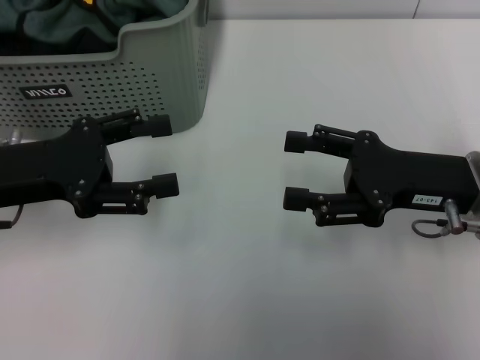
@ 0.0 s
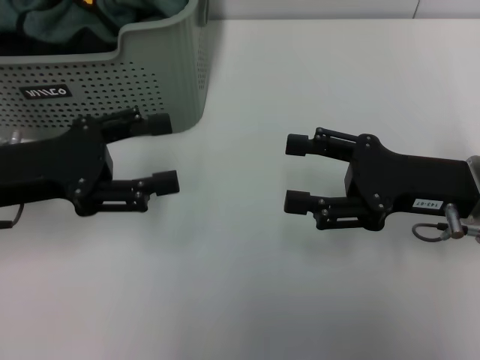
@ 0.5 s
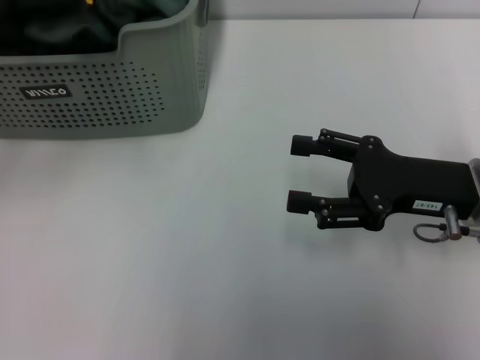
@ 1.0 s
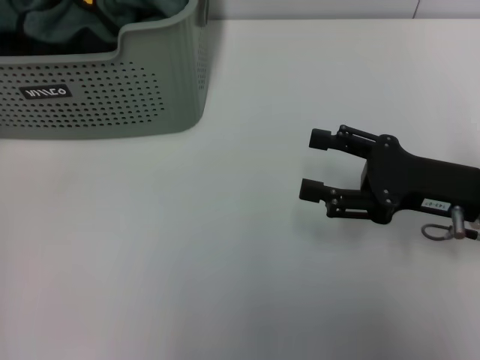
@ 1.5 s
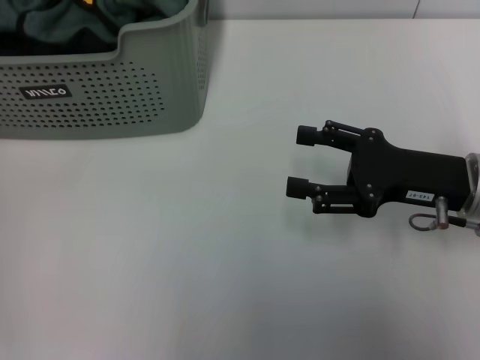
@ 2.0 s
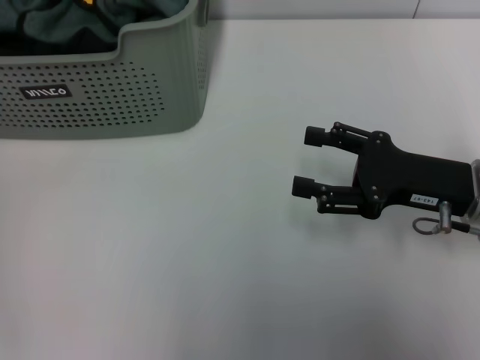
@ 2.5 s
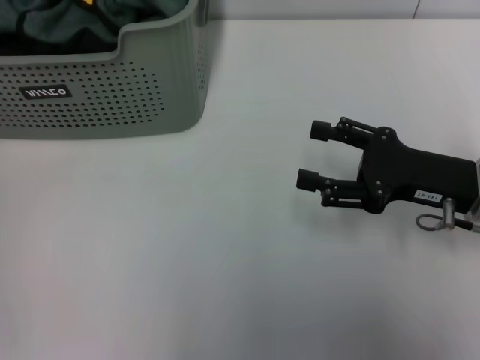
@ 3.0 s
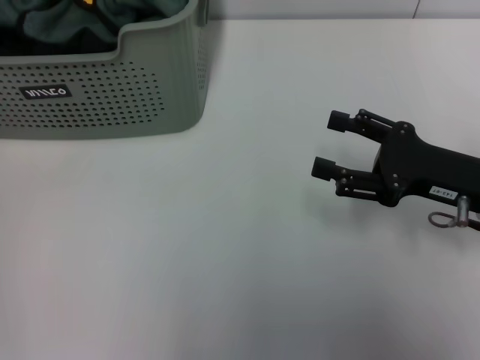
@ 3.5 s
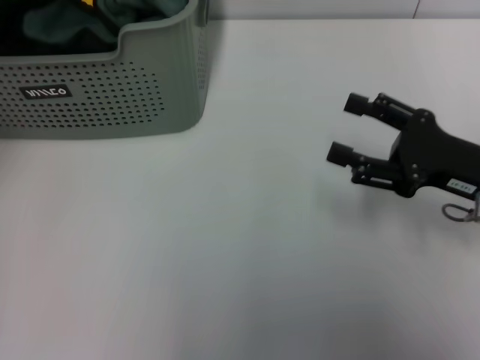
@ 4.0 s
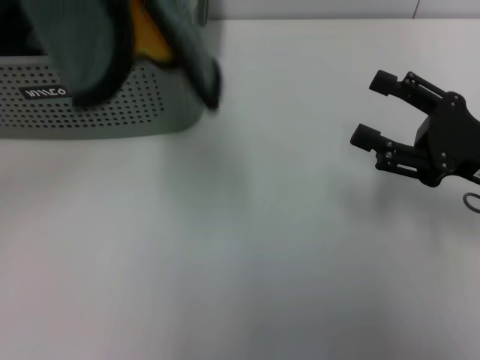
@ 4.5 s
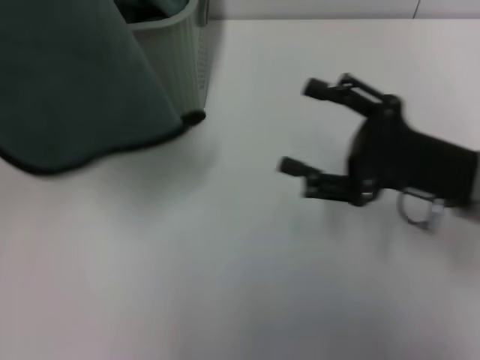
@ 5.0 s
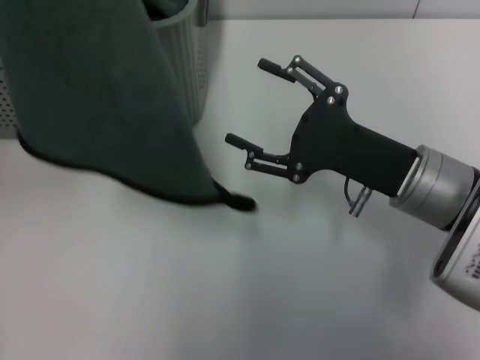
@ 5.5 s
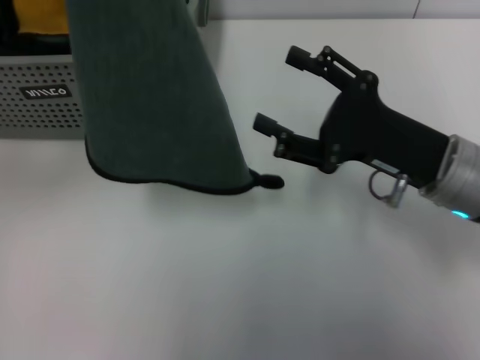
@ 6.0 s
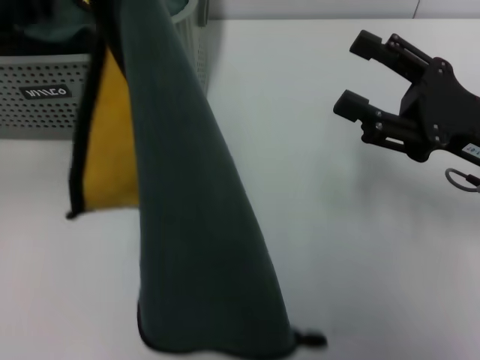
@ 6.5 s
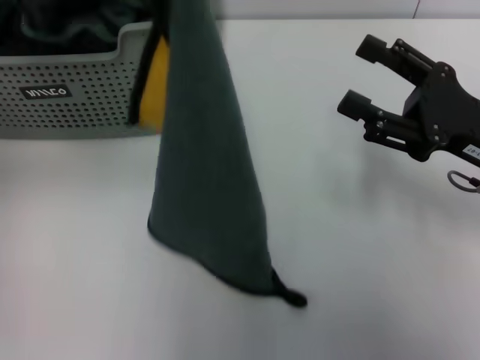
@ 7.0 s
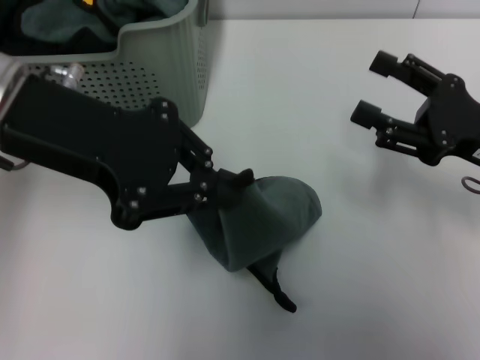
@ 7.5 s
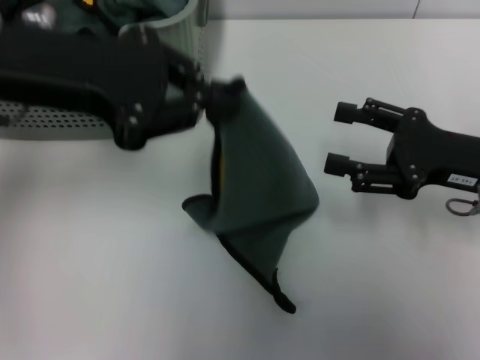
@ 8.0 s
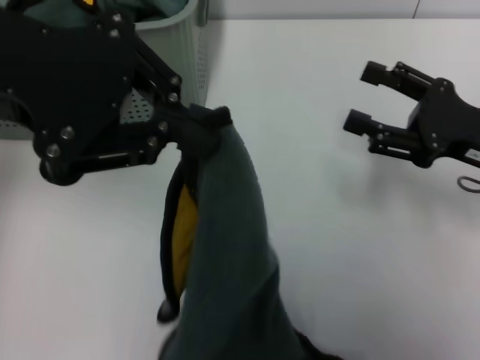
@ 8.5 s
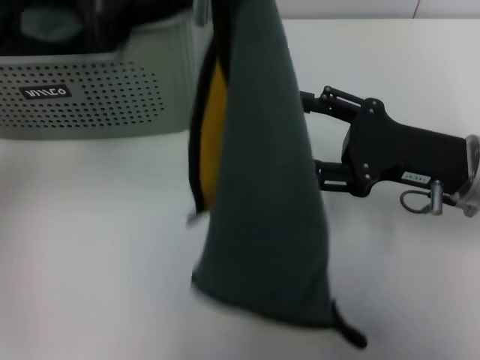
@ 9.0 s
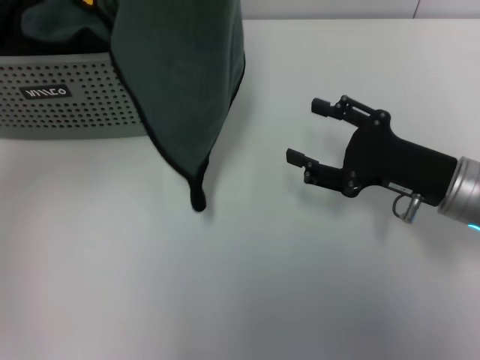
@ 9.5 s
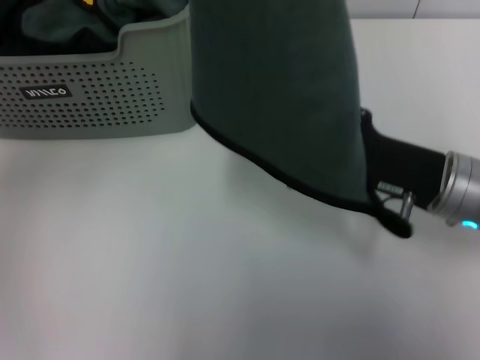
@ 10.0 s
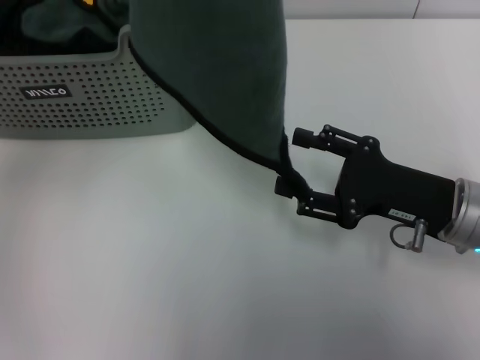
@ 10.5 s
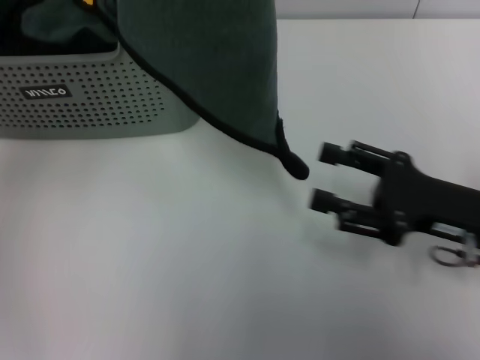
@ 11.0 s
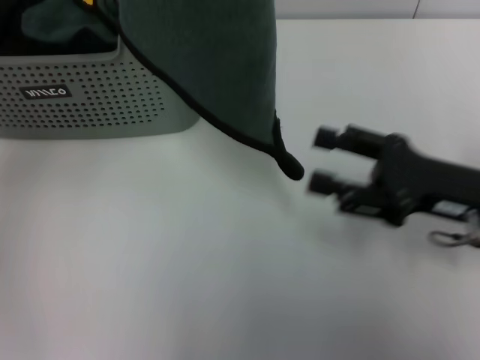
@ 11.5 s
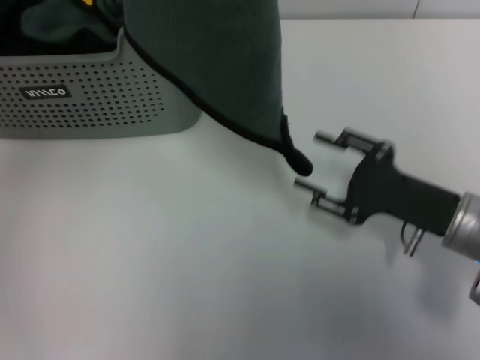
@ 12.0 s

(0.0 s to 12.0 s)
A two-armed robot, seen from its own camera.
Task of the whole recording: pick up the towel from the storage box and lay it flat on the table.
Step, 0.0 s - 3.0 s: Pick up a towel with the left gripper.
0.0 s - 2.0 s: The left gripper is displaced upward, to the left and forward by about 20 cm.
2.0 s - 4.0 s: The left gripper shifts roughly 15 cm upward, backward and to the right, and closes up.
4.0 s - 6.0 s: The right gripper shifts roughly 5 cm to the left.
6.0 s - 8.0 s: The left gripper heads downward and to the right, covering some 10 cm; the right gripper is displaced to the right by about 5 cm.
8.0 s - 10.0 s: The left gripper travels upward by approximately 10 cm. Meanwhile the right gripper heads to the left, covering some 5 cm.

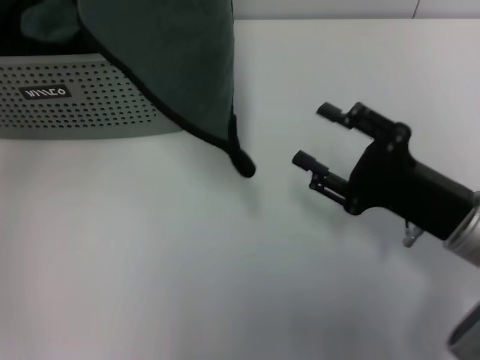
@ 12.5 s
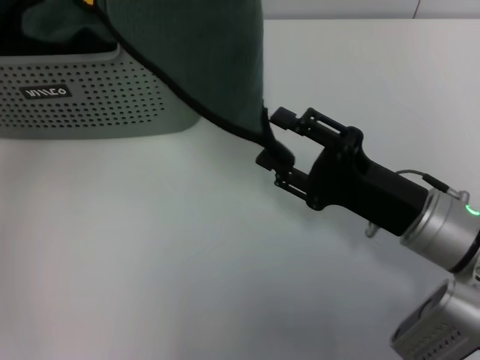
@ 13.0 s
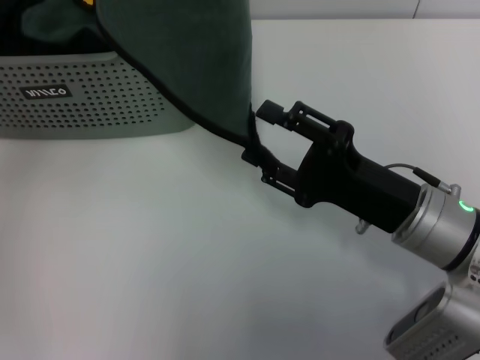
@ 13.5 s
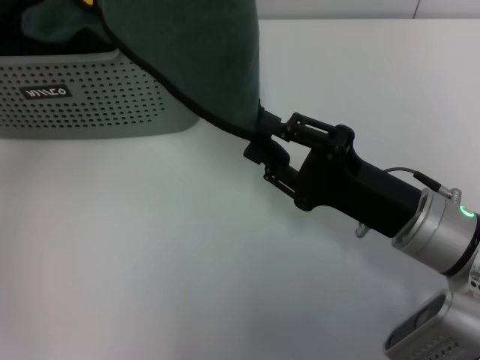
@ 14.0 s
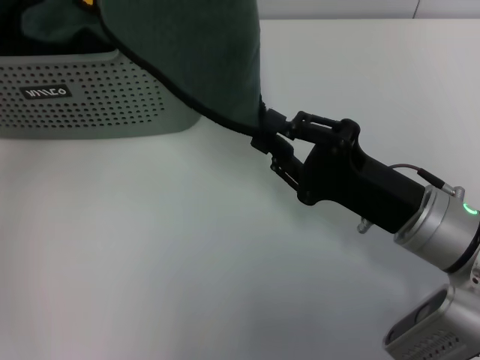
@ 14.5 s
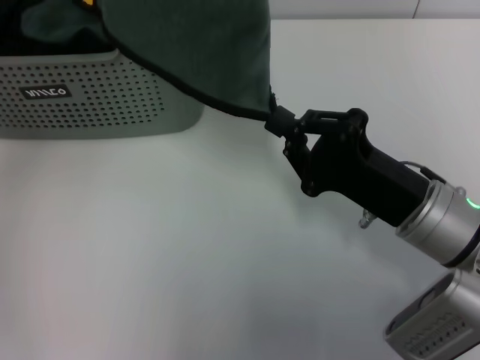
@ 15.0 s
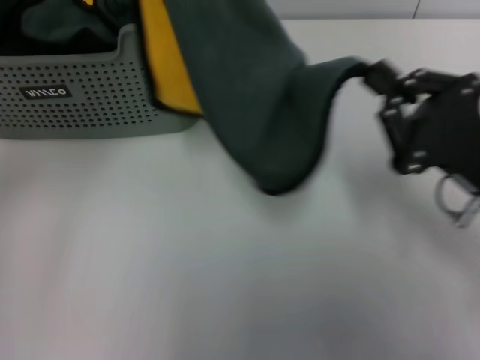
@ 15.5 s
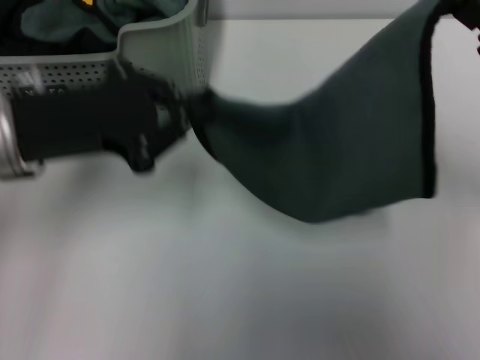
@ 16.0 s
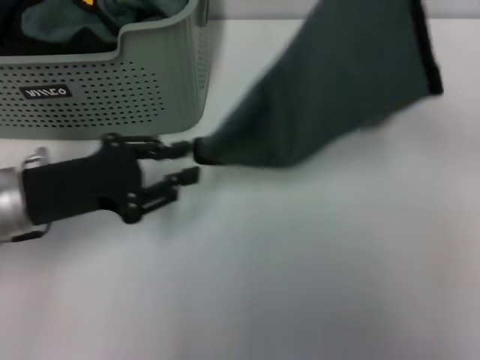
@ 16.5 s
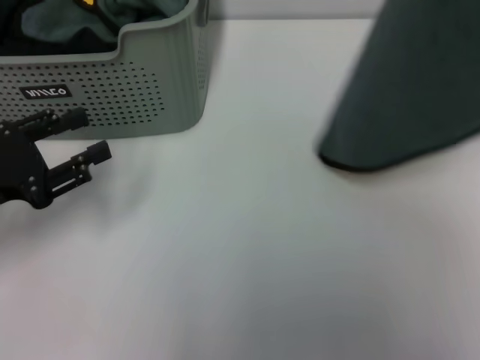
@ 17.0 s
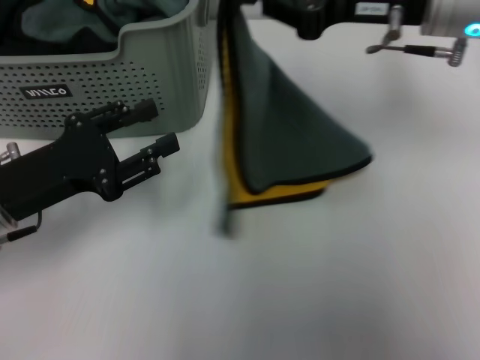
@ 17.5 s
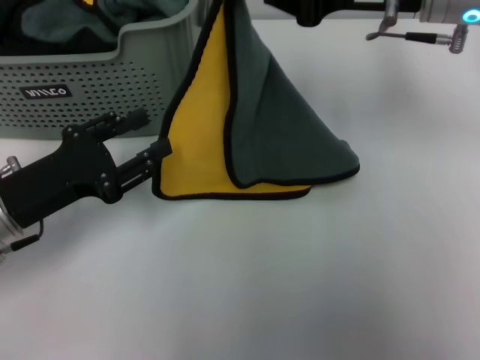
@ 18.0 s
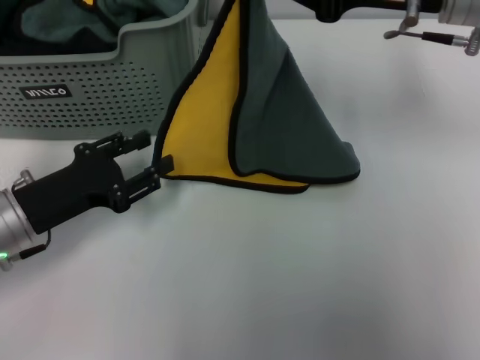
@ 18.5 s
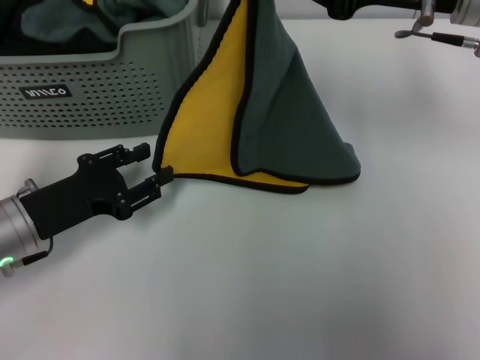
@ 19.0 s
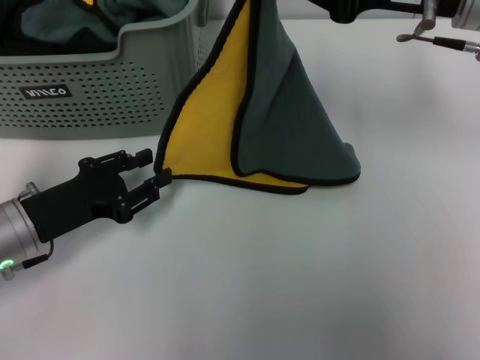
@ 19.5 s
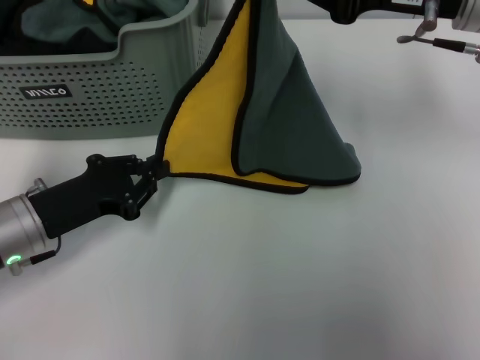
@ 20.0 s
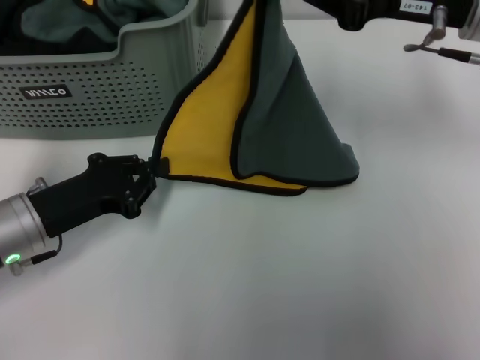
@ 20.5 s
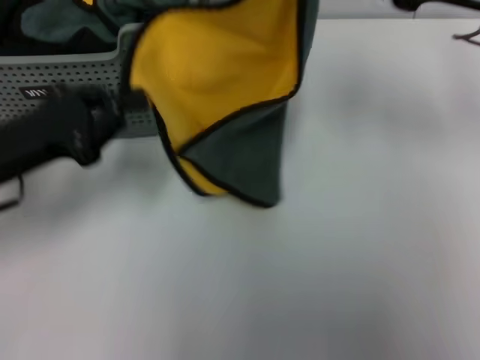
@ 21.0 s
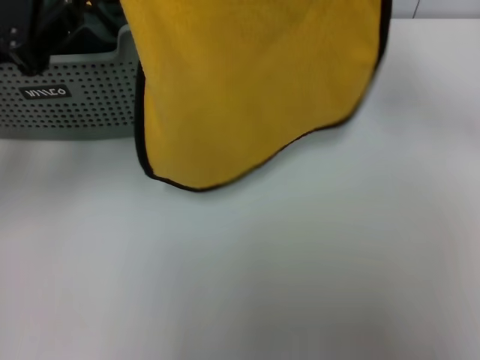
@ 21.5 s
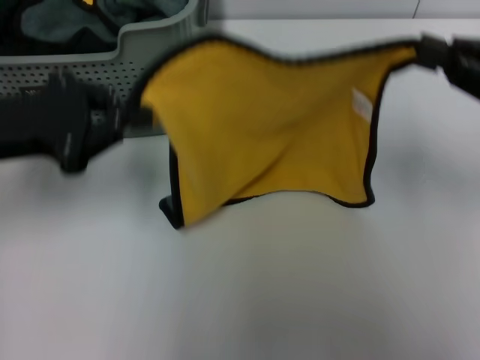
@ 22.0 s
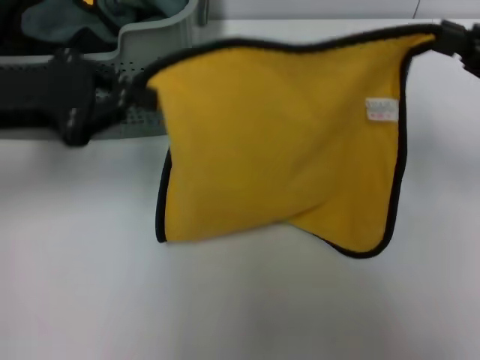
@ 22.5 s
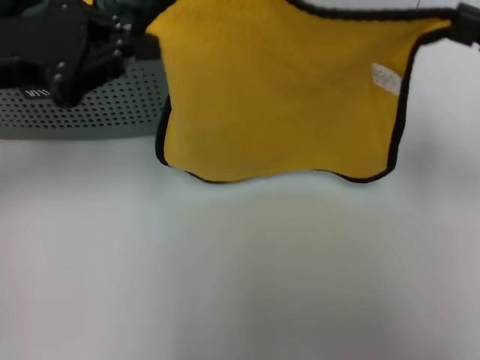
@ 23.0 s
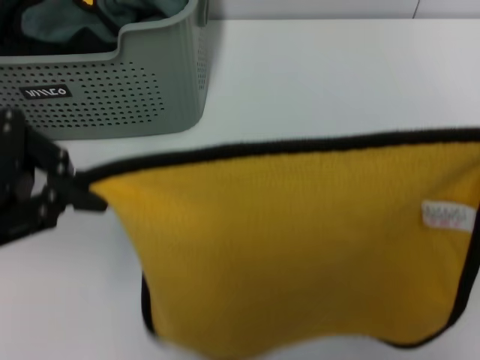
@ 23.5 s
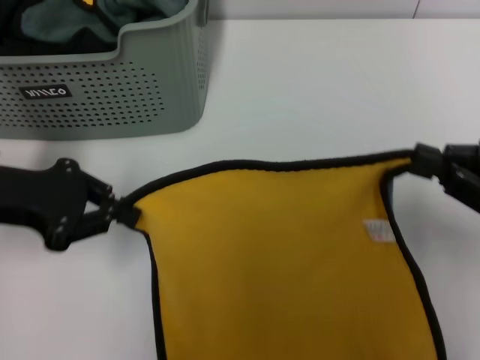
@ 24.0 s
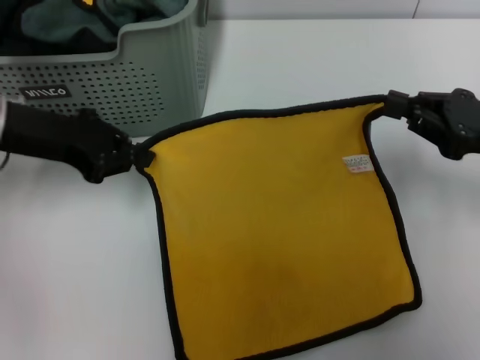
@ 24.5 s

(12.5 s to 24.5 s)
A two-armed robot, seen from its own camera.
Task of the whole recording: pick up the towel from the storage box and lay it flat on the table.
12.5 s - 14.5 s: The grippers stay close to where they were, moving slightly.
14.5 s - 16.5 s: The left gripper moves downward, approximately 30 cm. The right gripper shifts roughly 20 cm upward, to the right and forward, and closes up.
16.5 s - 18.5 s: The right gripper goes approximately 10 cm to the left and forward. Meanwhile the left gripper goes roughly 5 cm downward, and opens.
18.5 s - 20.5 s: The left gripper closes its fingers.
20.5 s - 22.5 s: The left gripper travels upward by approximately 15 cm. Meanwhile the right gripper moves to the right and backward, some 15 cm.
22.5 s - 24.5 s: The right gripper is displaced downward by some 5 cm, and reaches some 10 cm backward, then returns.

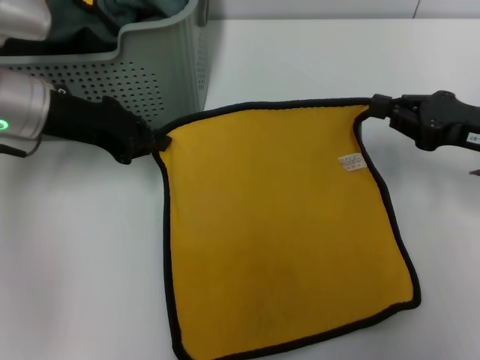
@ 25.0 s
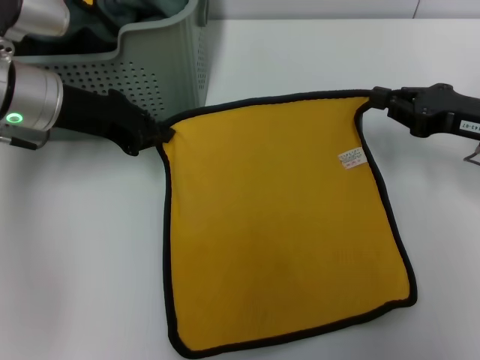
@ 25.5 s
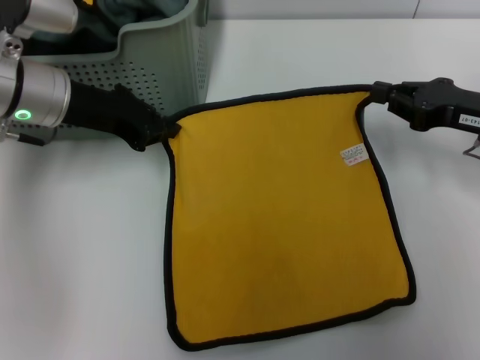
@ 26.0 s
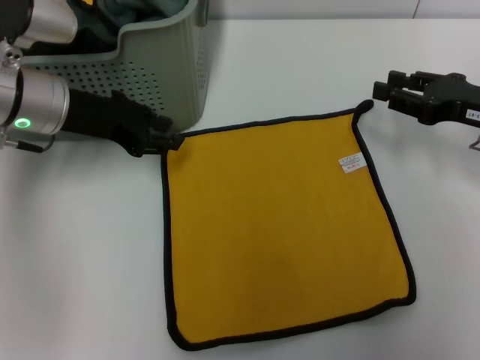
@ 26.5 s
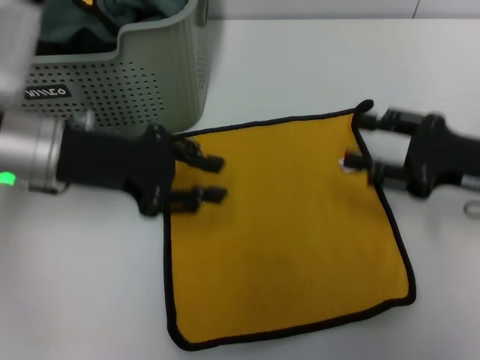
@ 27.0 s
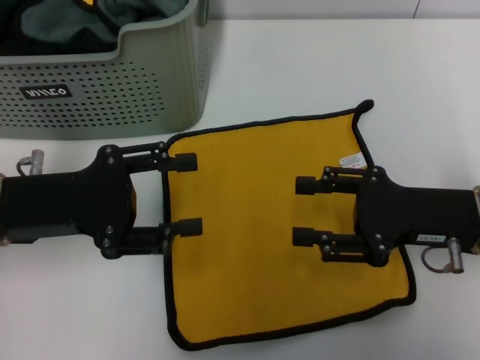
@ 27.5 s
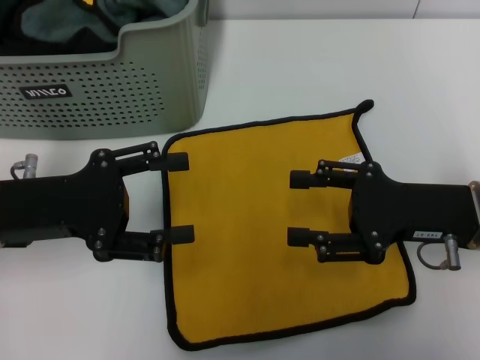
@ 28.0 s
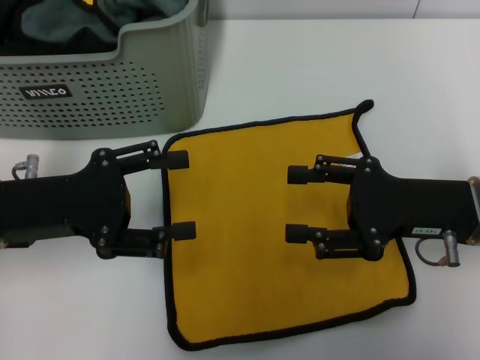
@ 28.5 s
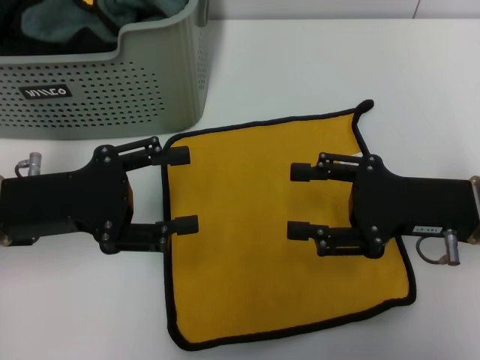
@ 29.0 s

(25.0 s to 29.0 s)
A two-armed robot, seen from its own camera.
Task of the whole recording: pick up the towel from the storage box and lay it flat on the table.
25.0 s - 27.0 s: The right gripper opens, while the left gripper opens up.
27.0 s - 29.0 s: The left gripper travels backward by some 5 cm, and opens its fingers; the right gripper moves to the left, about 5 cm.
